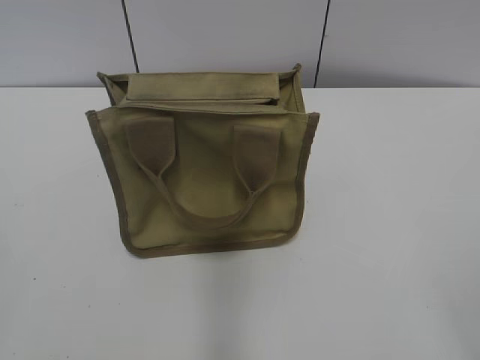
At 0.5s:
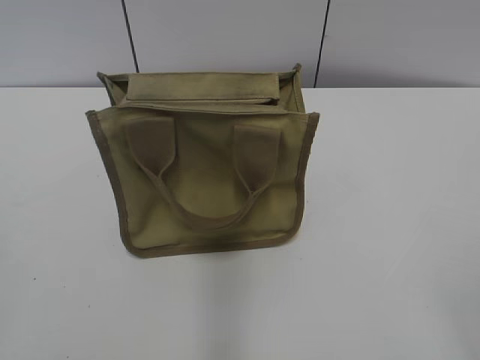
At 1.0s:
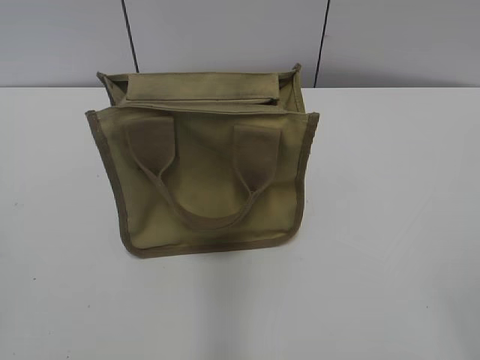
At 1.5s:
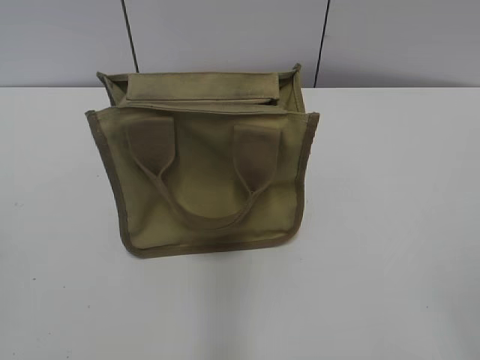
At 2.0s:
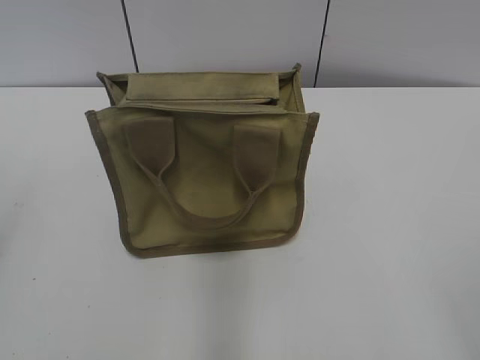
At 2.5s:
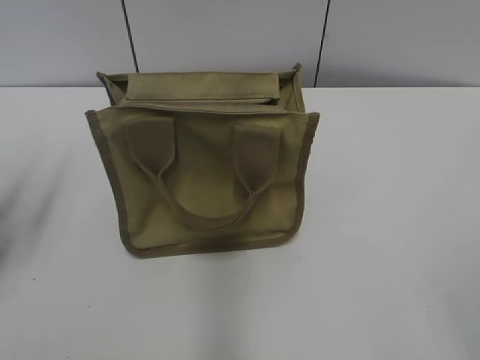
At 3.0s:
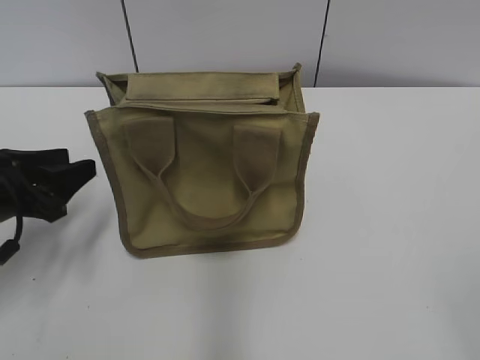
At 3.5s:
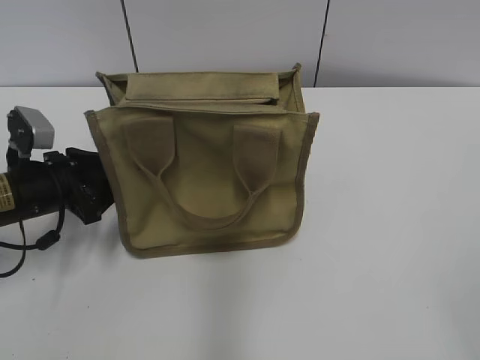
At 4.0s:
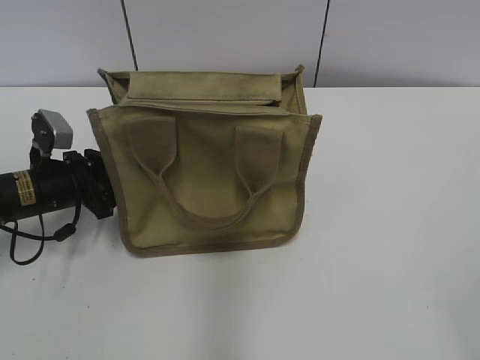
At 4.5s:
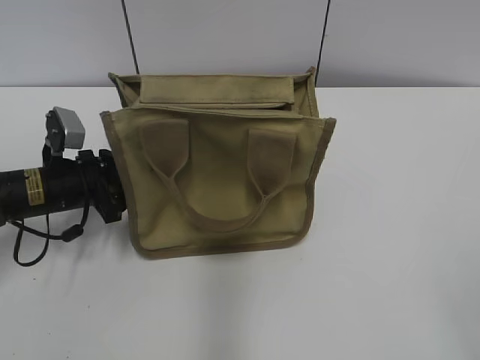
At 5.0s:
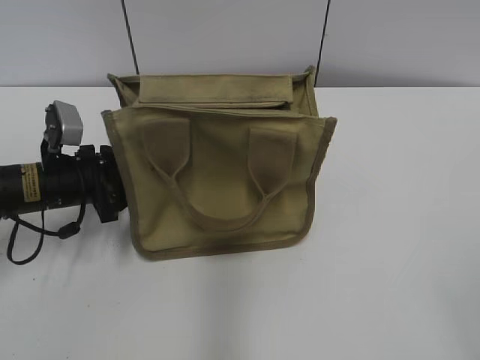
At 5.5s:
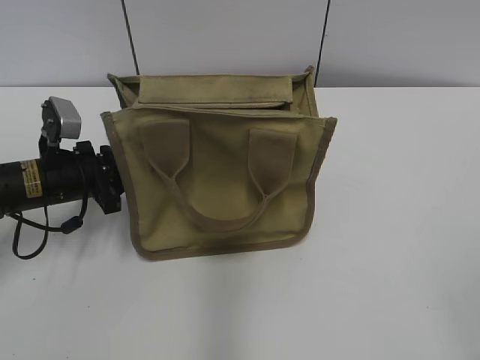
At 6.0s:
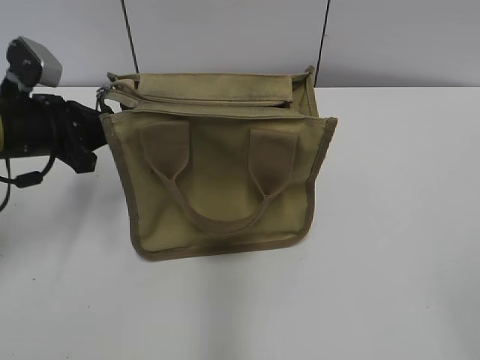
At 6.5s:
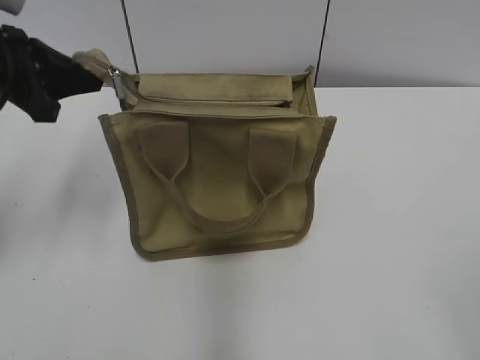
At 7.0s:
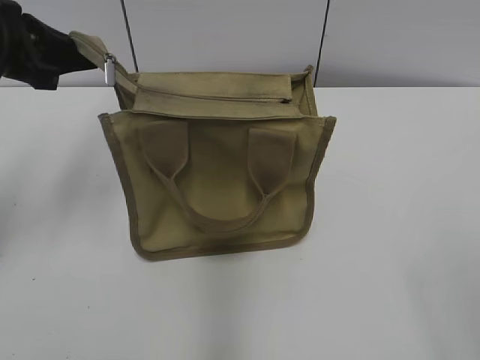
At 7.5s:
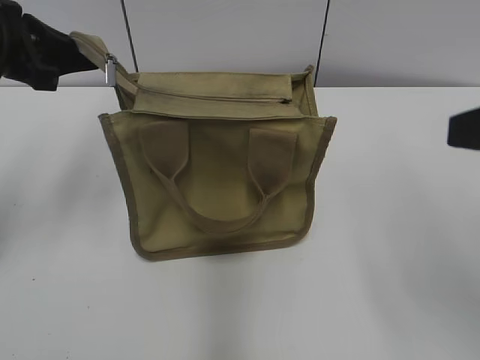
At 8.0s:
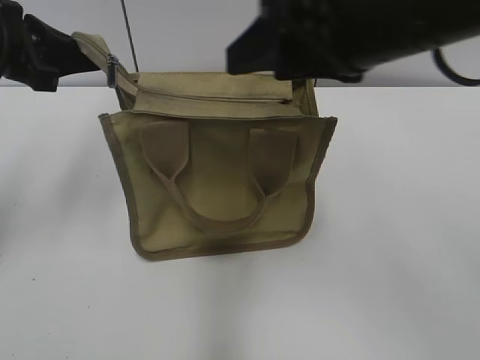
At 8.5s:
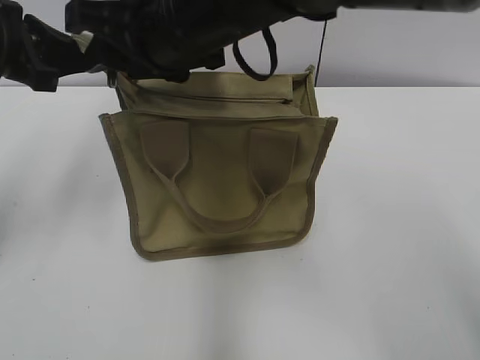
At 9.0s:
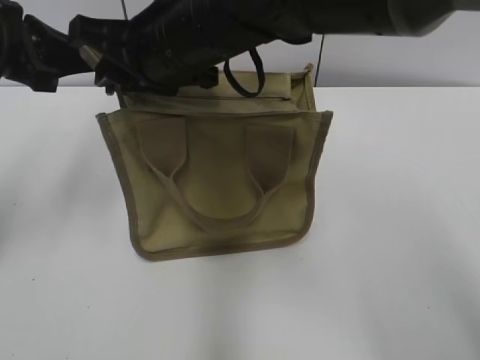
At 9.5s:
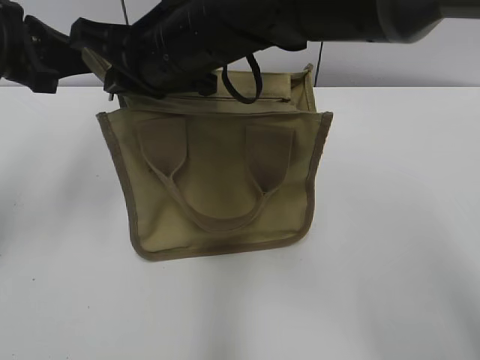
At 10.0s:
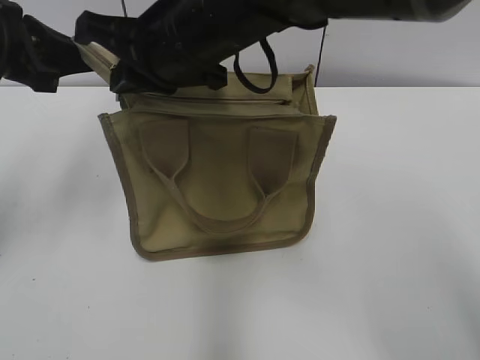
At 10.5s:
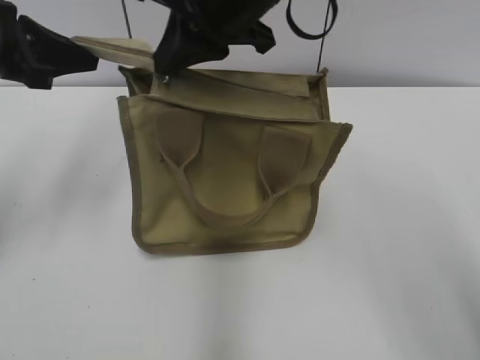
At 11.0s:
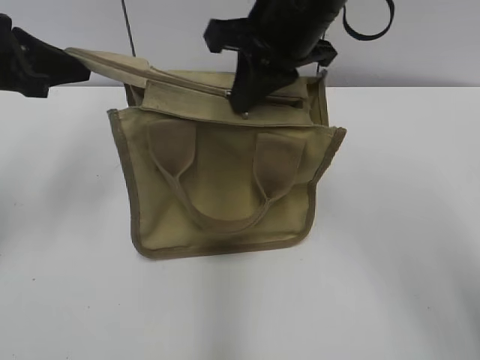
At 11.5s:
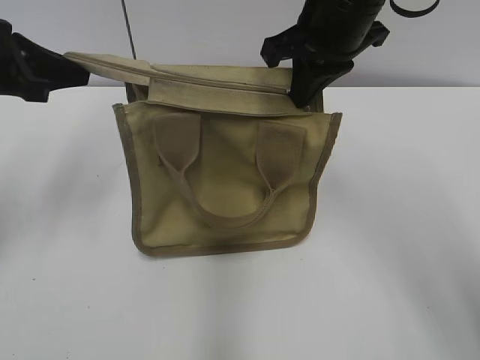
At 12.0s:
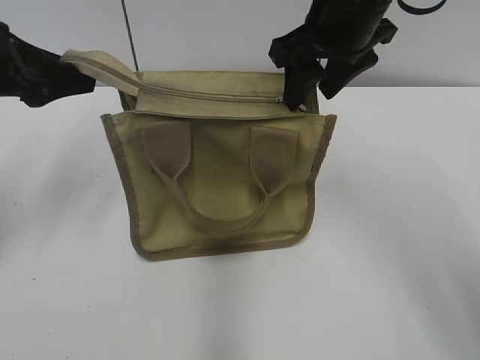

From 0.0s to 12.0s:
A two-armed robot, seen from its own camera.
Step, from 0.0s to 11.5s: Zip up the bag with your right hand.
From 2.0s to 4.0s: The left gripper travels forward and downward by some 35 cm.
From 4.0s to 6.0s: The left gripper is displaced upward by about 5 cm, and closes.
From 6.0s to 8.0s: The right gripper shifts roughly 30 cm forward and to the left, while the left gripper heads upward, covering approximately 15 cm.
From 8.0s to 10.0s: The right gripper heads to the left and forward, covering roughly 20 cm, and closes.
From 10.0s to 12.0s: The right gripper shifts some 15 cm to the right, and opens; the left gripper opens up.

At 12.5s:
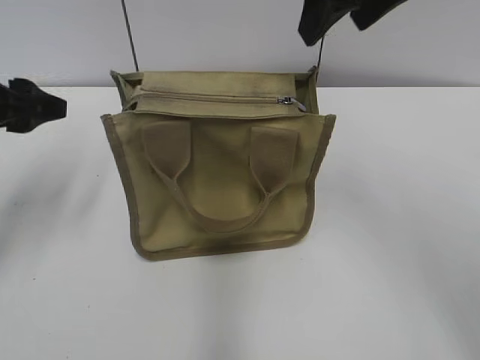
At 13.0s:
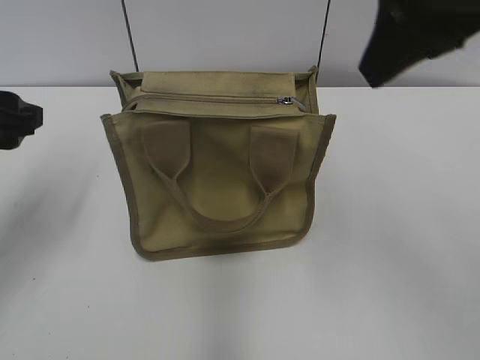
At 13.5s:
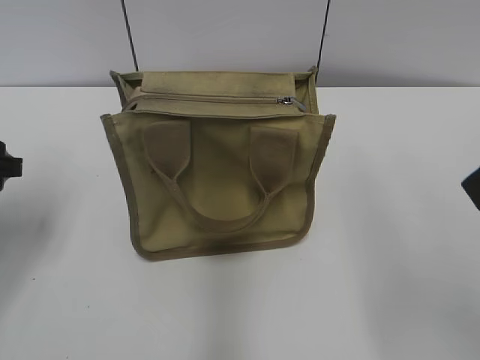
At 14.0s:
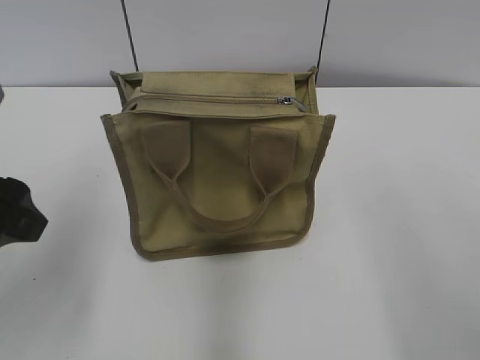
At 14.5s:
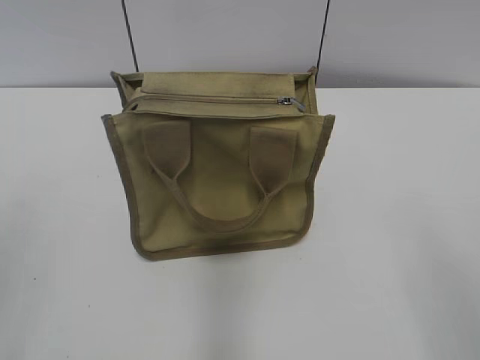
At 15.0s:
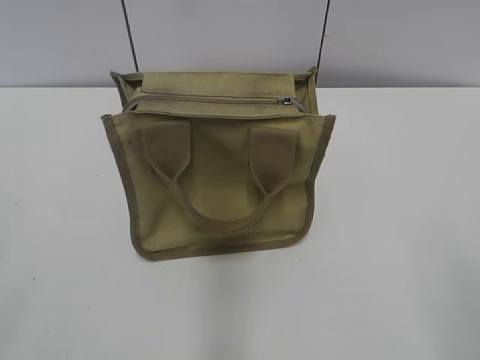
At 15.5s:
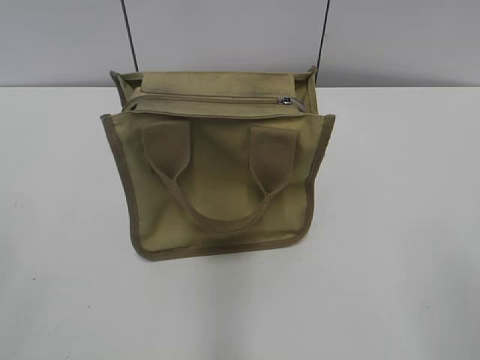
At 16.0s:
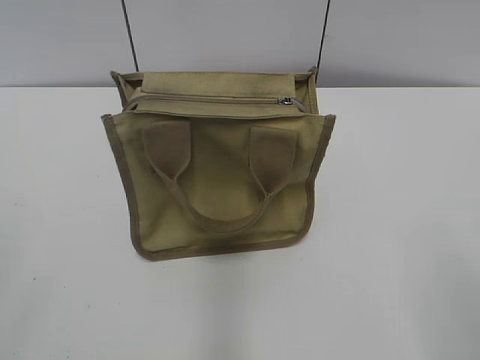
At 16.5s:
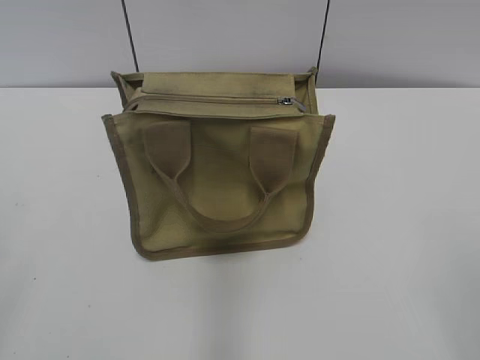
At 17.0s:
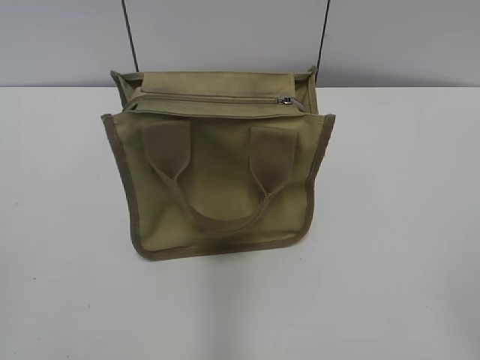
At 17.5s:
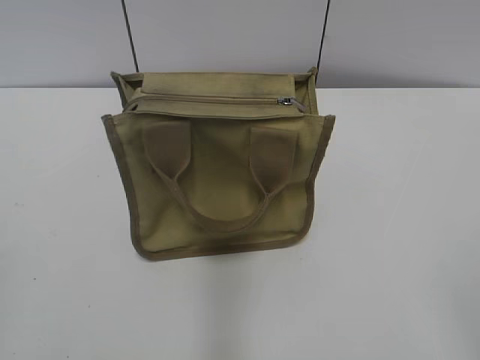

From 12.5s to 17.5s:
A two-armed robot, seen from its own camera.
From 12.5s to 15.0s: The left gripper goes about 30 cm backward. The right gripper heads backward and to the right, covering roughly 35 cm.

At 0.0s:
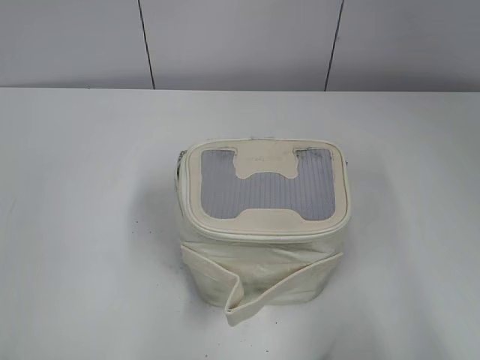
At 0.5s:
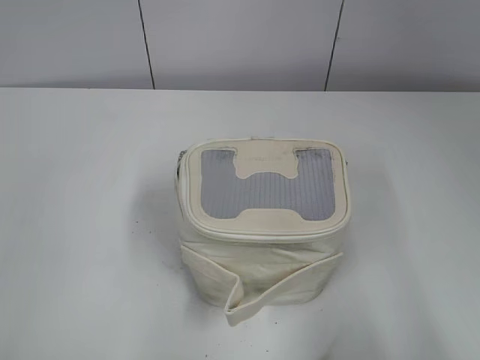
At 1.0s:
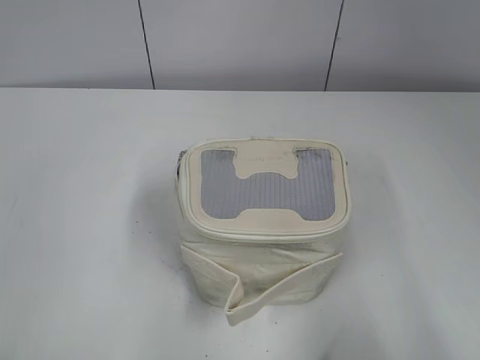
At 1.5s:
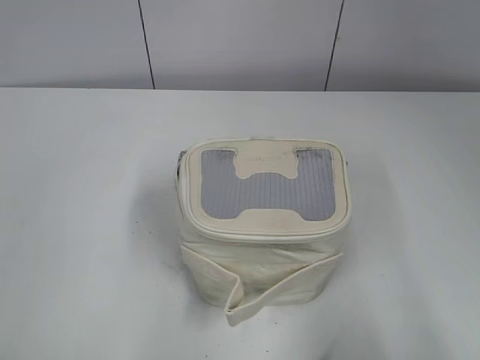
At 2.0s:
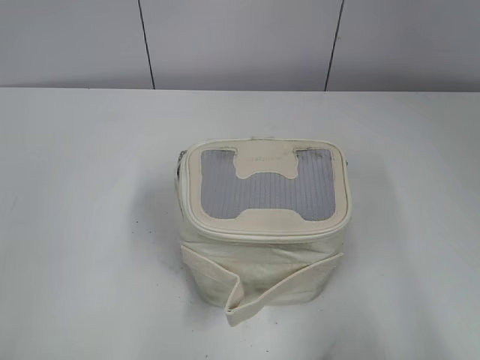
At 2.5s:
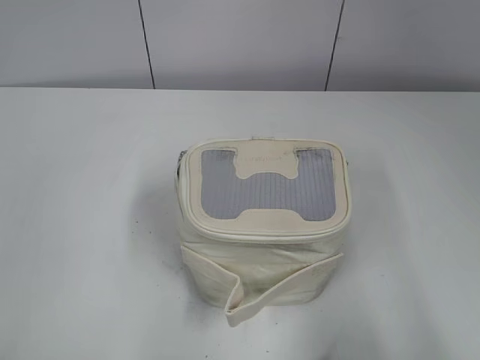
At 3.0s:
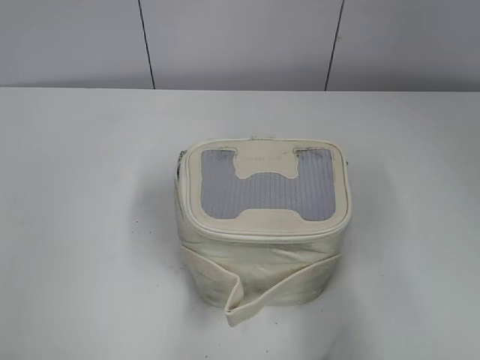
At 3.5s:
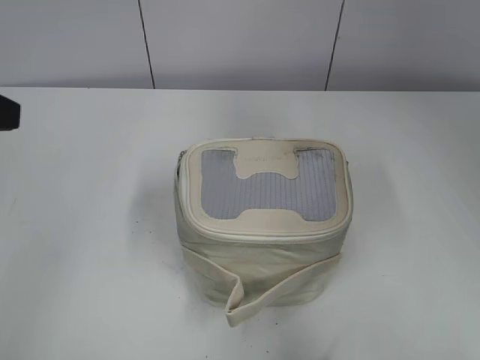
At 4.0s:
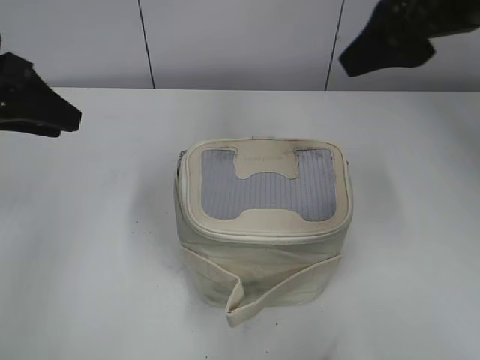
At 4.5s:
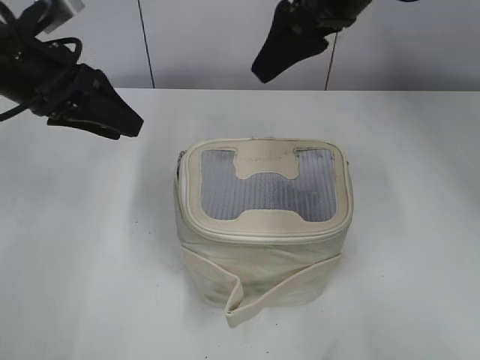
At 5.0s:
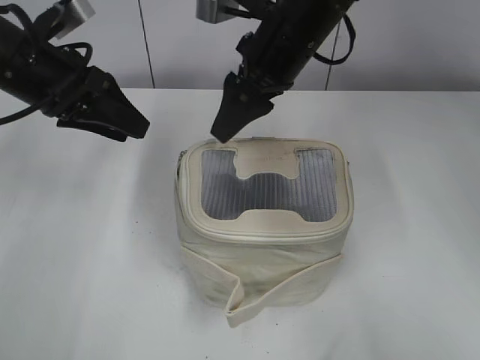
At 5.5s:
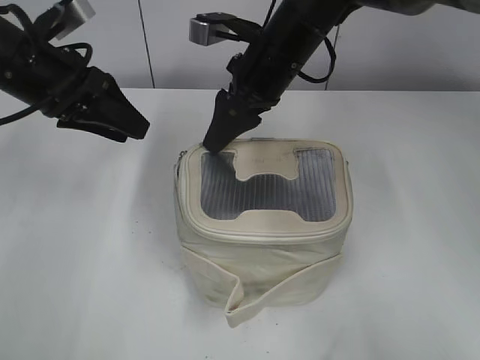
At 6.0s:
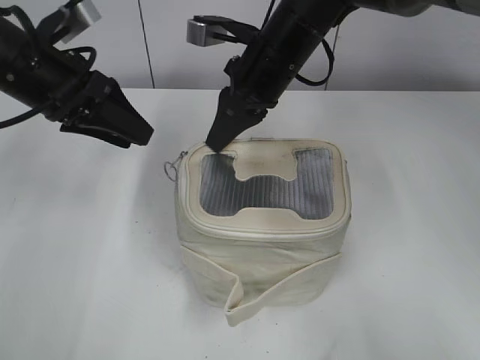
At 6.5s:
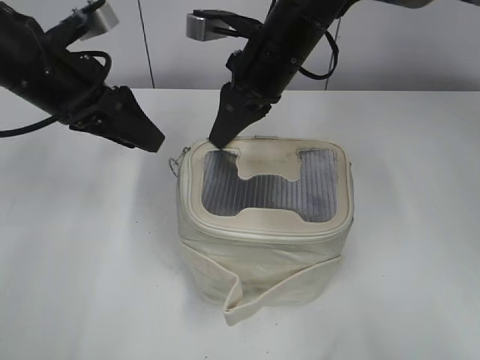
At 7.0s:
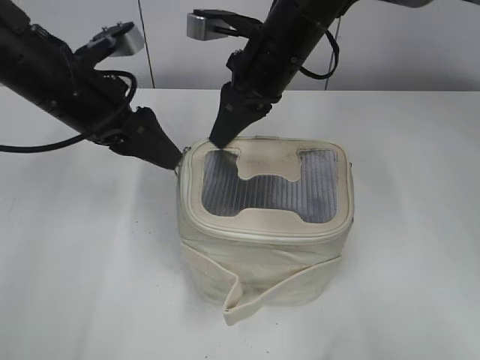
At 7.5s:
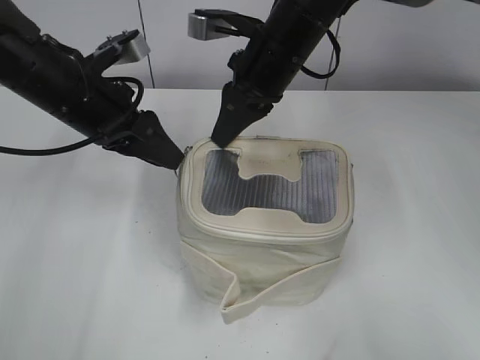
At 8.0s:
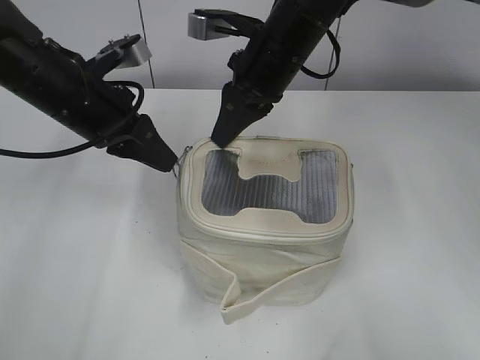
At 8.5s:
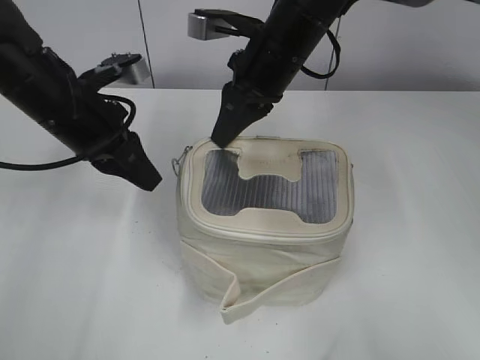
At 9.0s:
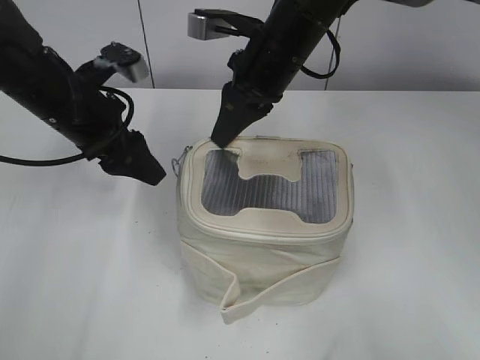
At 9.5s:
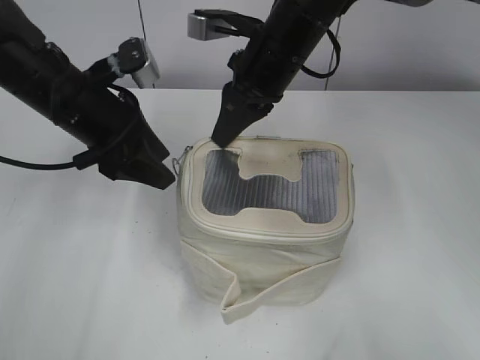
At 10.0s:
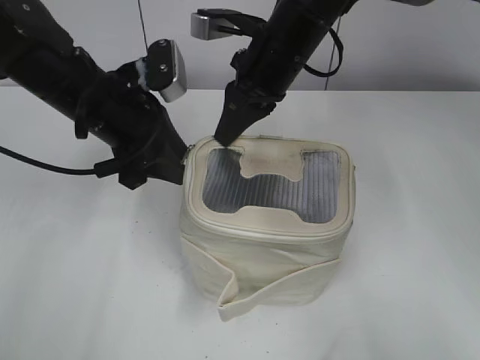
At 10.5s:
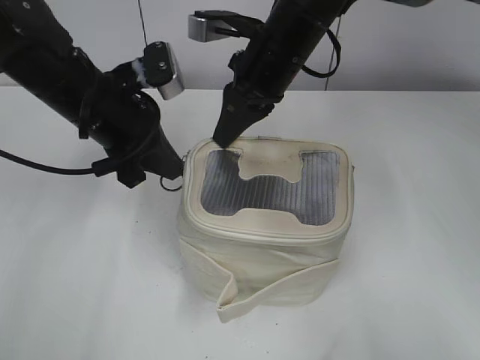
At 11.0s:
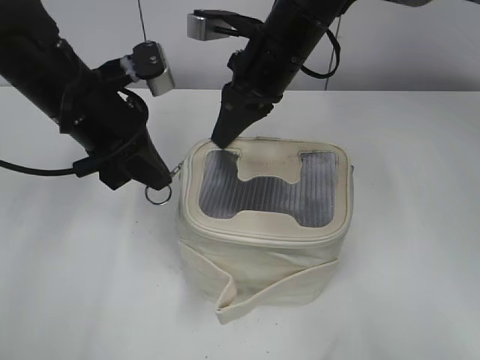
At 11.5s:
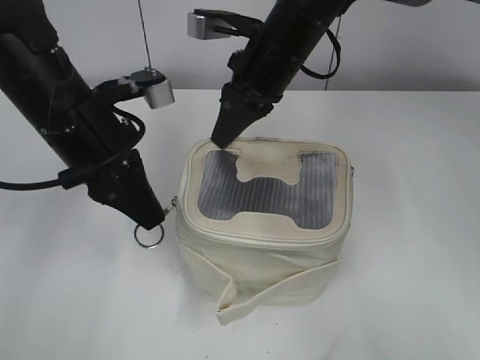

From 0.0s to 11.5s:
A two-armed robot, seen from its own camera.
From 2.0s to 4.0s: The right gripper heads forward and to the left, covering roughly 30 cm; the left gripper travels forward by about 25 cm.
From 4.0s to 6.0s: The left gripper travels forward and to the right by roughly 10 cm. The right gripper travels downward, to the left and forward by some 20 cm, and closes its fingers.
From 6.0s to 7.5s: The left gripper ends up approximately 5 cm from where it was.
From 7.5s to 9.5s: The left gripper closes and opens again.
From 9.5s to 11.5s: The left gripper moves roughly 5 cm, and closes its fingers.
